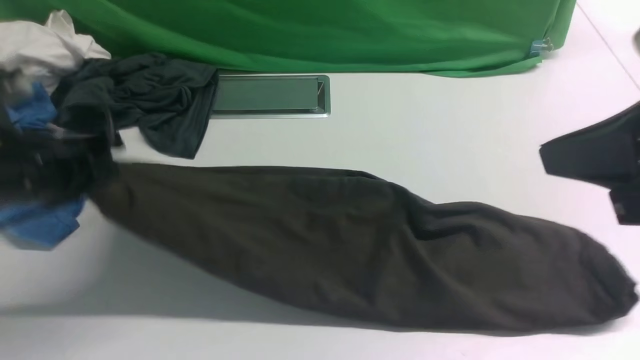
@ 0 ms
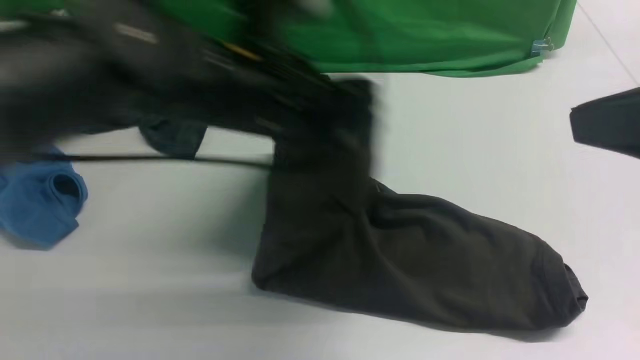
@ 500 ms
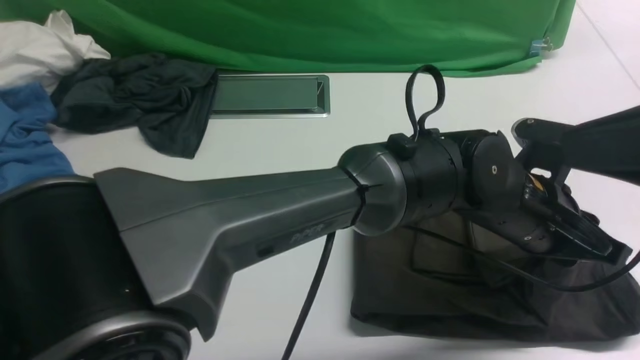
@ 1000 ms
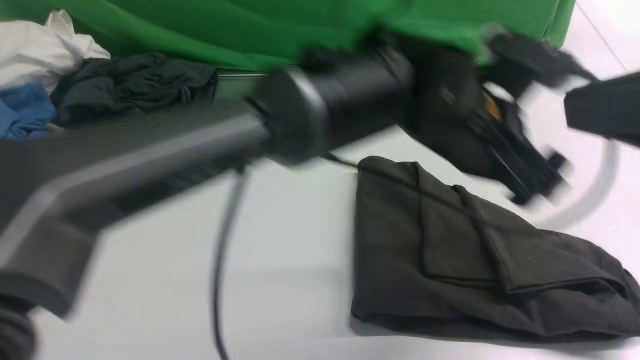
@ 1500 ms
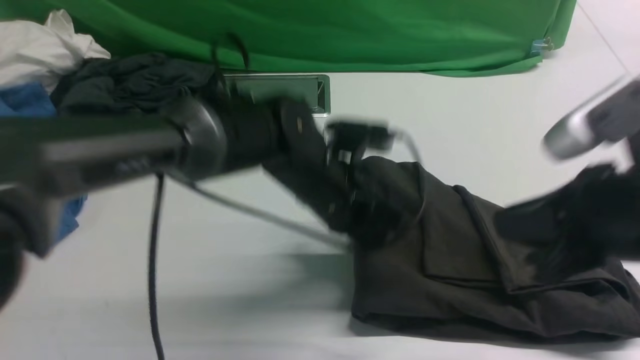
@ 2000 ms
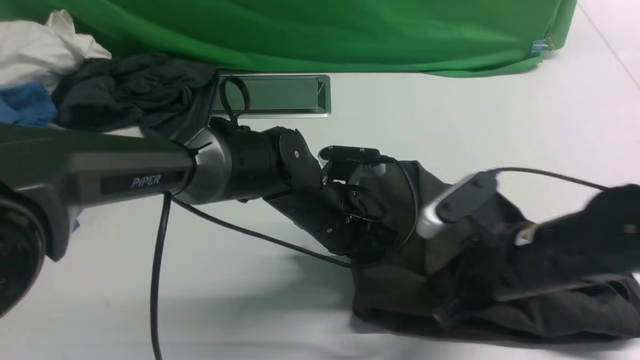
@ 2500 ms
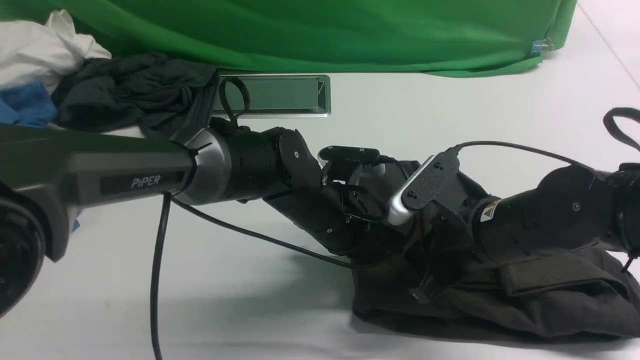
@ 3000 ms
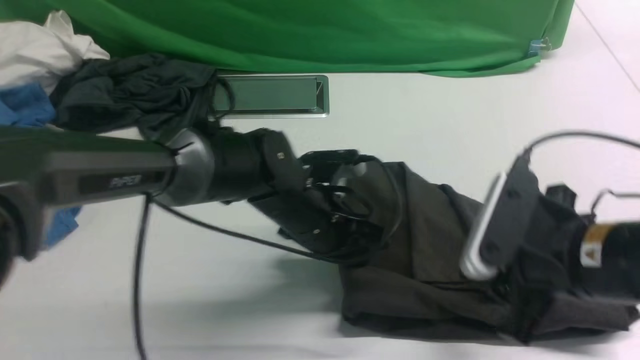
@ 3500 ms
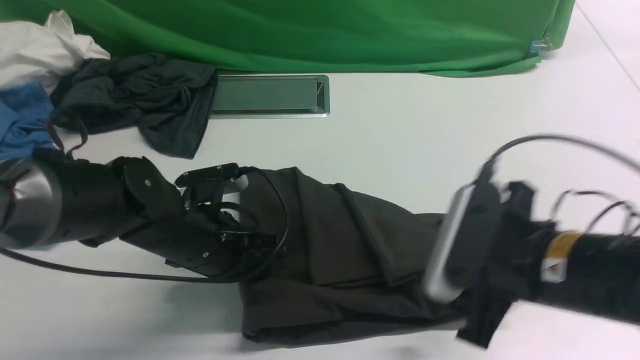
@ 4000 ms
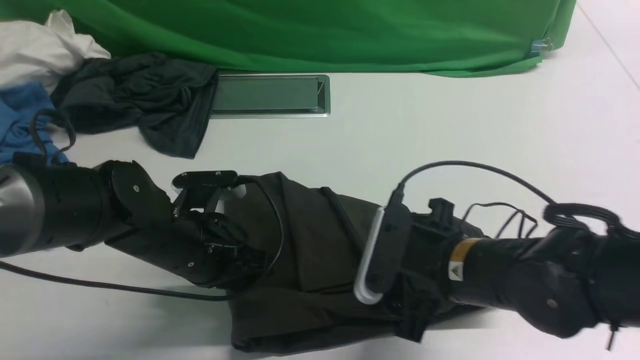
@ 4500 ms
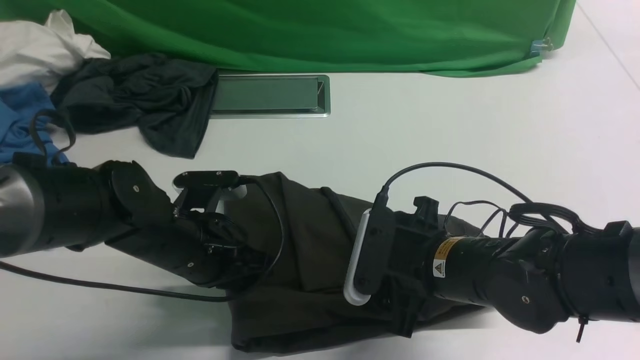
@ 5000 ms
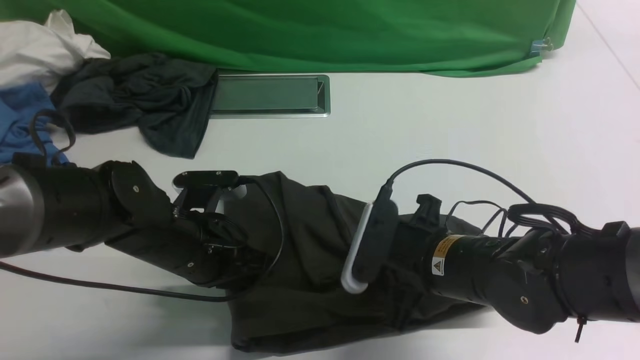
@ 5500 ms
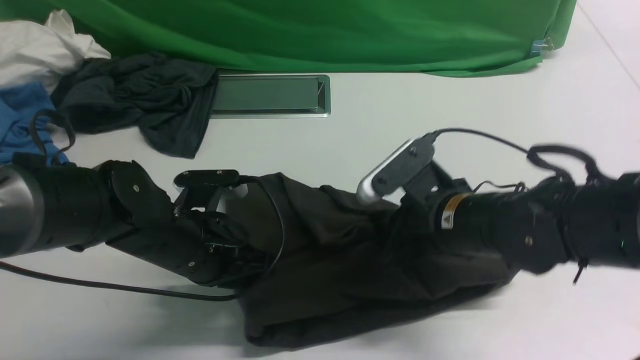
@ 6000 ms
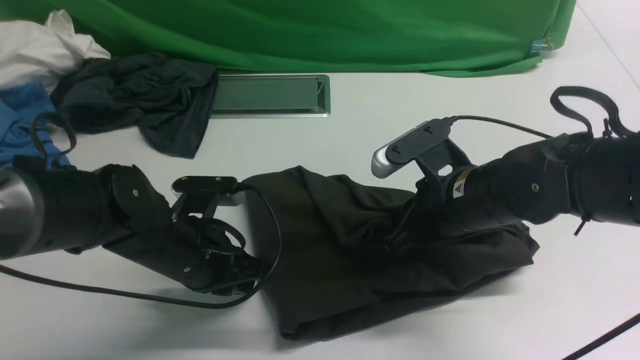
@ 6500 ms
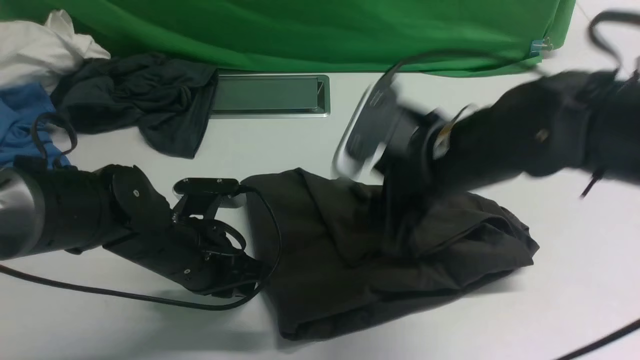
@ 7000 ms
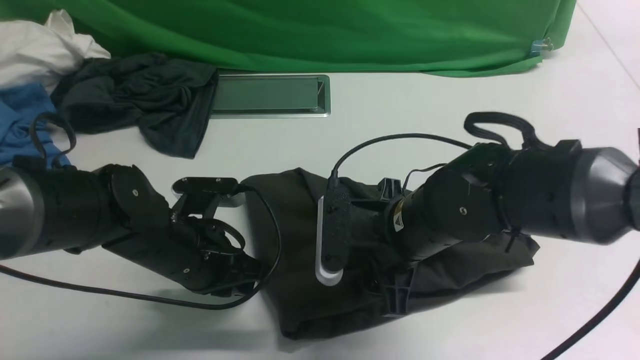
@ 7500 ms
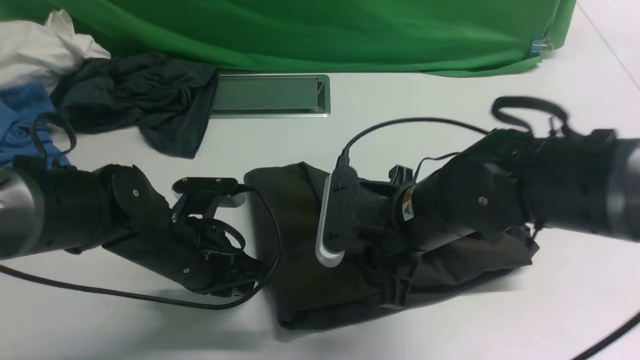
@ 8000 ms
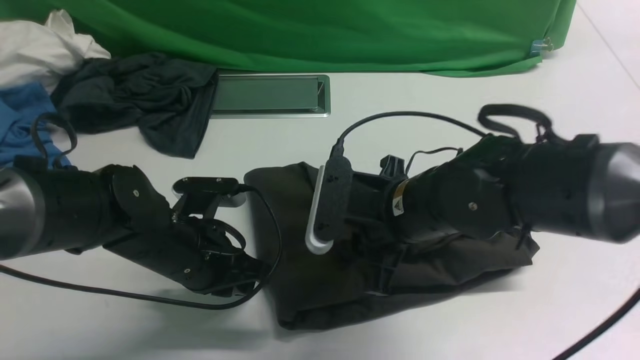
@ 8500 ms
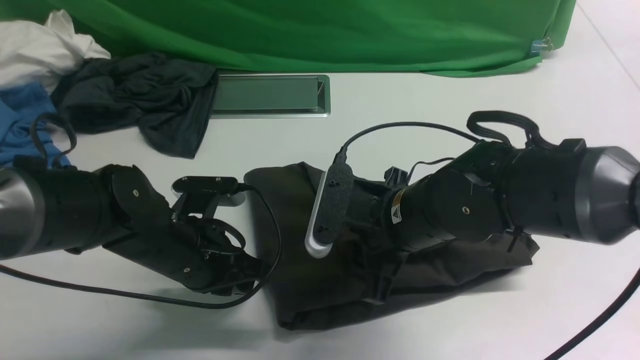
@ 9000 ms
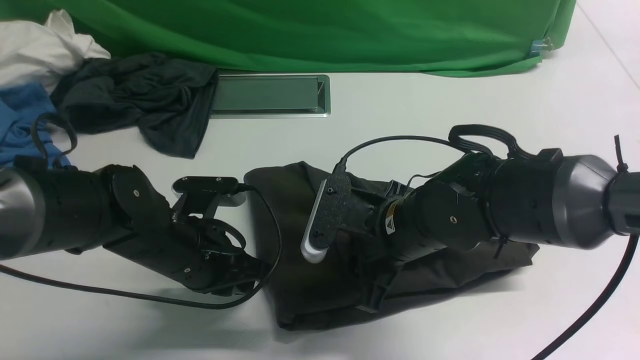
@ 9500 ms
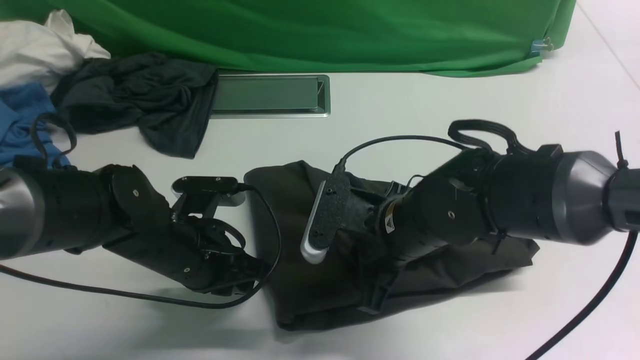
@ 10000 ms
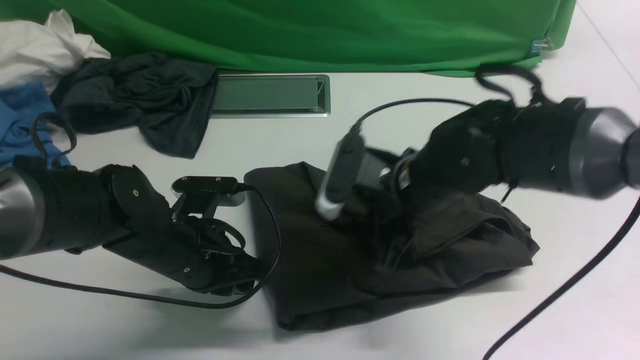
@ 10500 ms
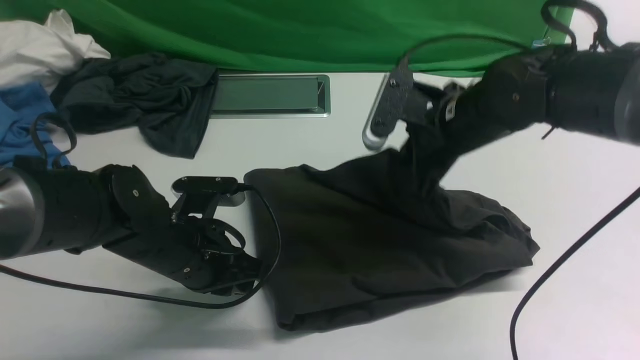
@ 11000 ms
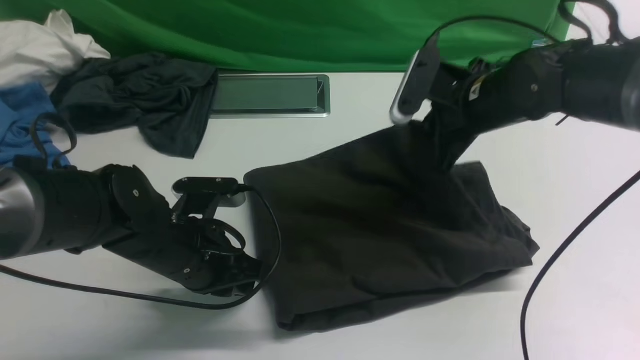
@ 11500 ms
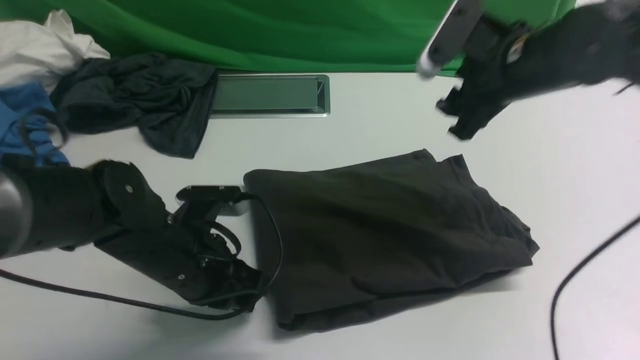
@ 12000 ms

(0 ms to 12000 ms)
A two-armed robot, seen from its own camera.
Step, 0 ms - 1000 ms: Drag the left edge of the fabric to the left with your left arm and fold it to the right edge.
0 ms - 2000 ms: The left gripper shifts about 25 cm to the right and downward, and opens and closes again; the right gripper travels downward by approximately 10 cm.
2000 ms - 4000 ms: The right gripper goes approximately 10 cm downward, and opens, while the left gripper travels to the left and backward by approximately 15 cm.
4000 ms - 6000 ms: The right gripper is displaced forward by roughly 10 cm, and closes.
6000 ms - 8000 ms: The right gripper moves about 5 cm, and opens.
8000 ms - 10000 ms: The right gripper closes.
10000 ms - 12000 ms: The right gripper travels to the right, upward and forward by roughly 20 cm, and opens its fingers.

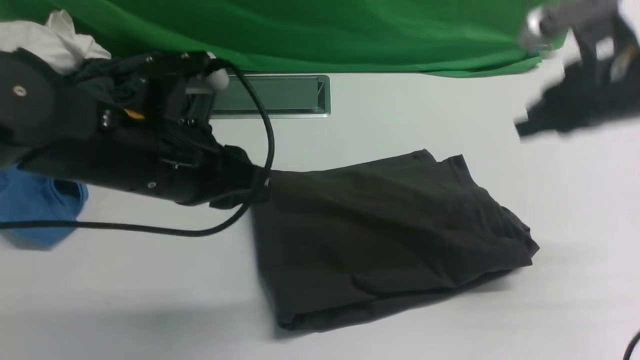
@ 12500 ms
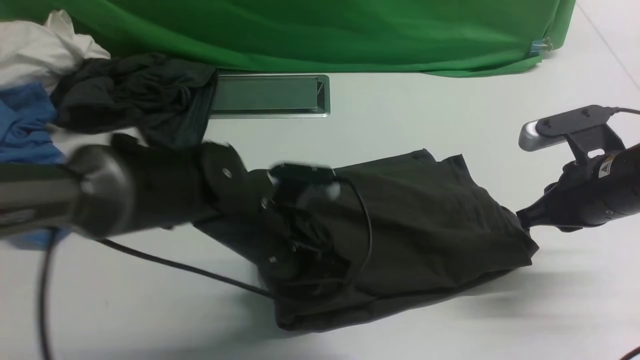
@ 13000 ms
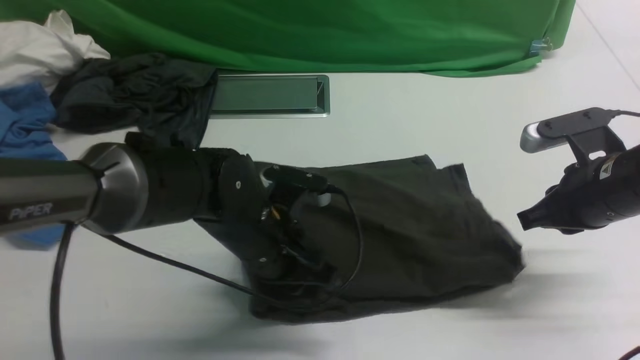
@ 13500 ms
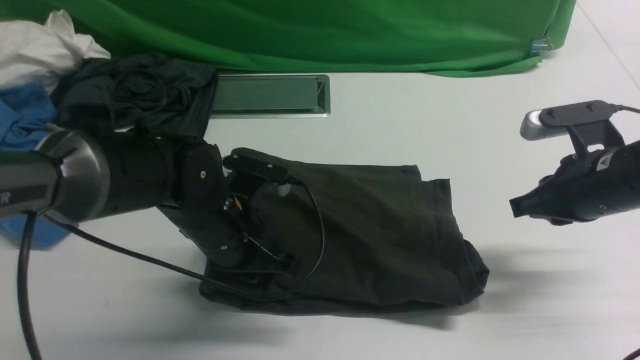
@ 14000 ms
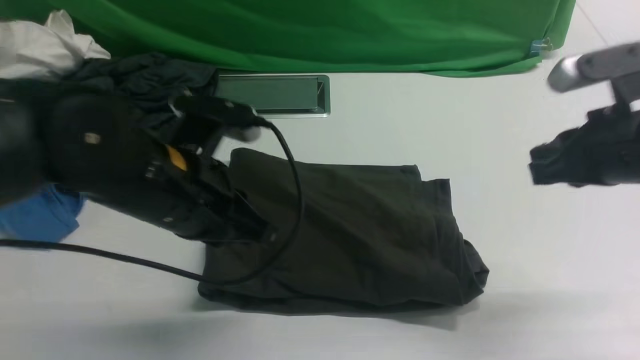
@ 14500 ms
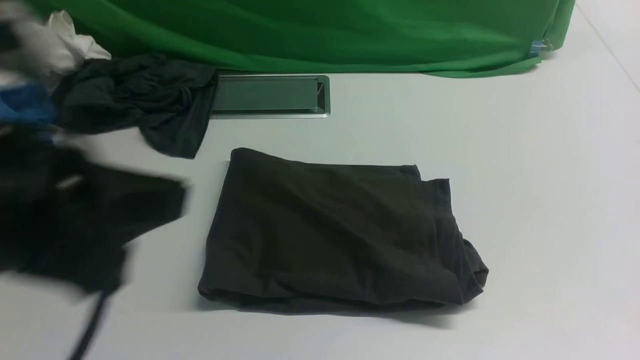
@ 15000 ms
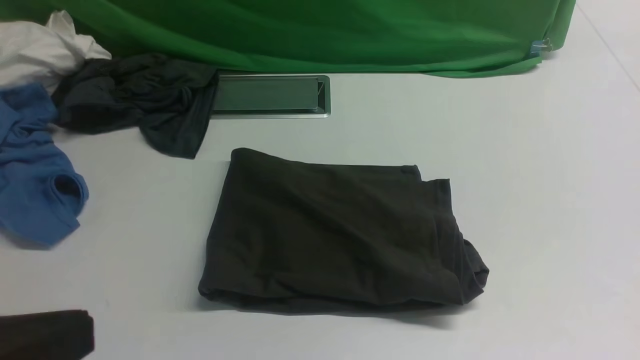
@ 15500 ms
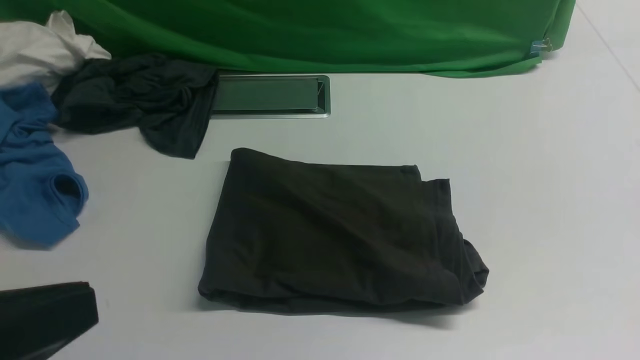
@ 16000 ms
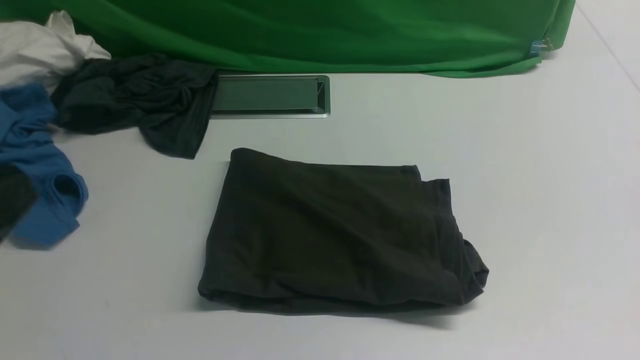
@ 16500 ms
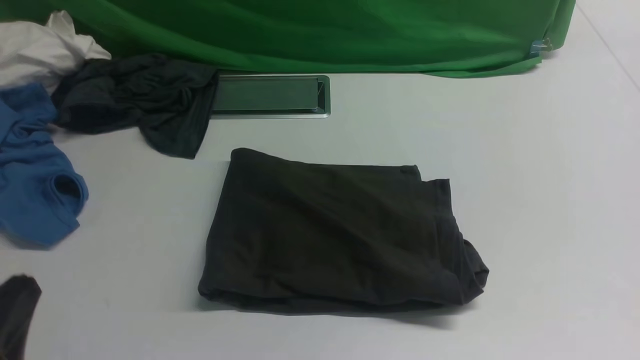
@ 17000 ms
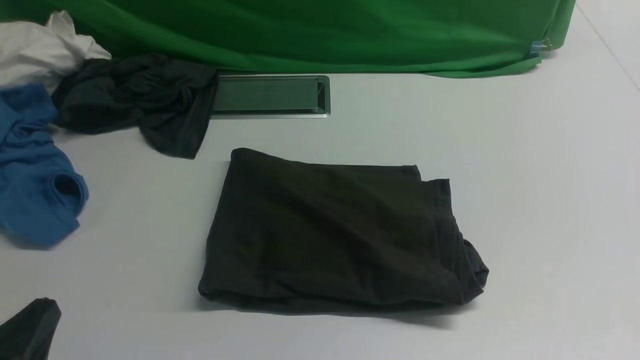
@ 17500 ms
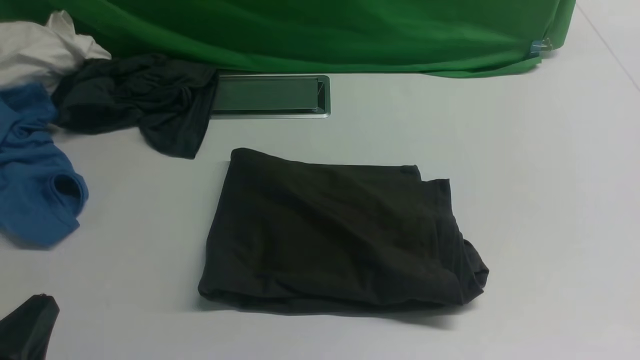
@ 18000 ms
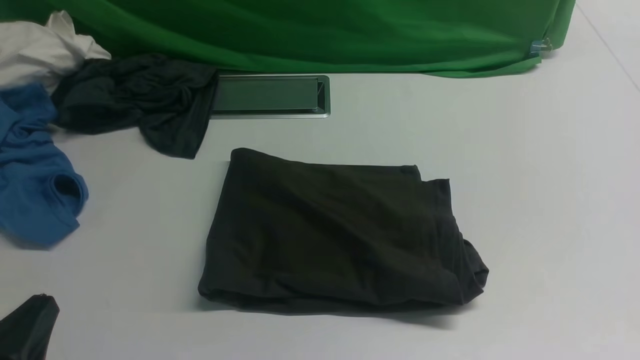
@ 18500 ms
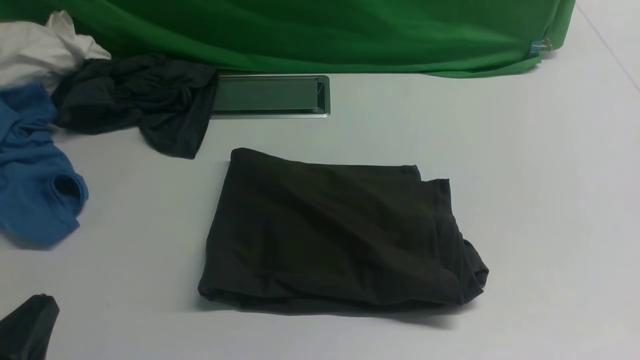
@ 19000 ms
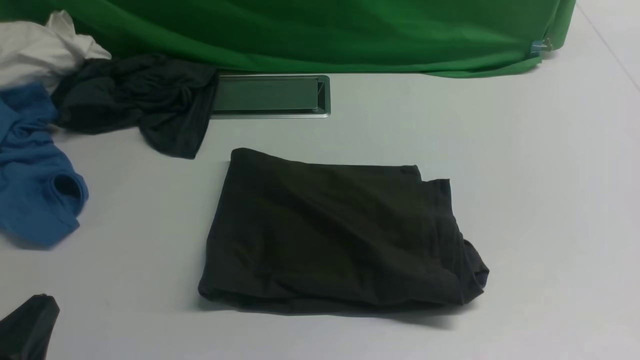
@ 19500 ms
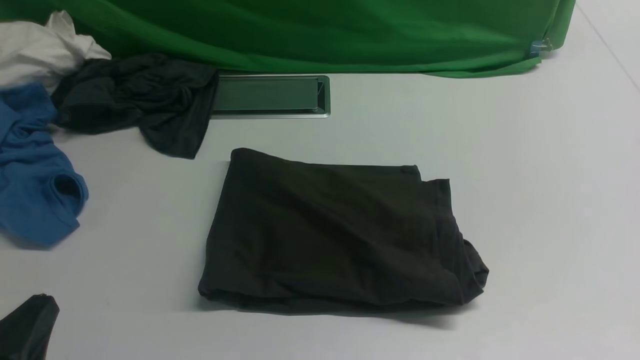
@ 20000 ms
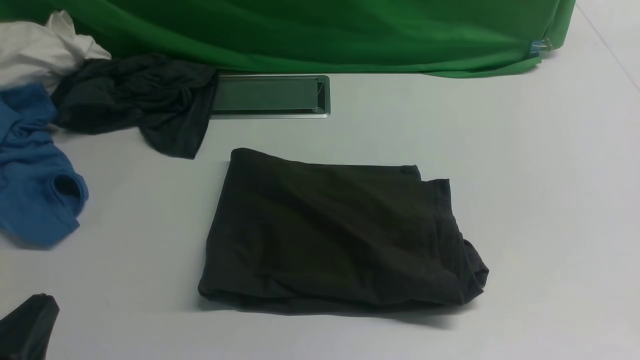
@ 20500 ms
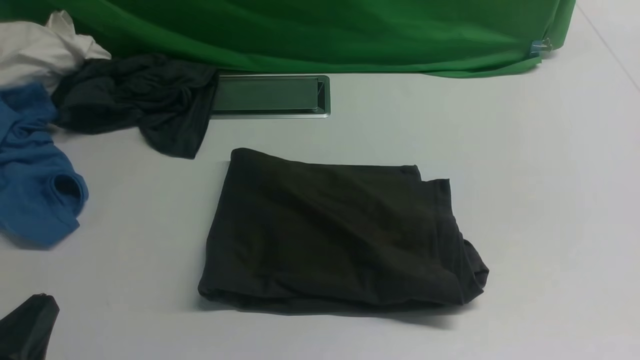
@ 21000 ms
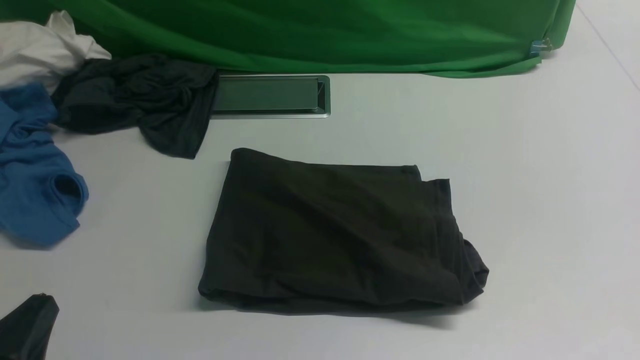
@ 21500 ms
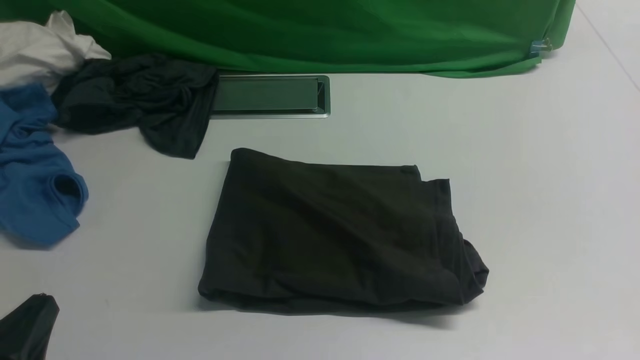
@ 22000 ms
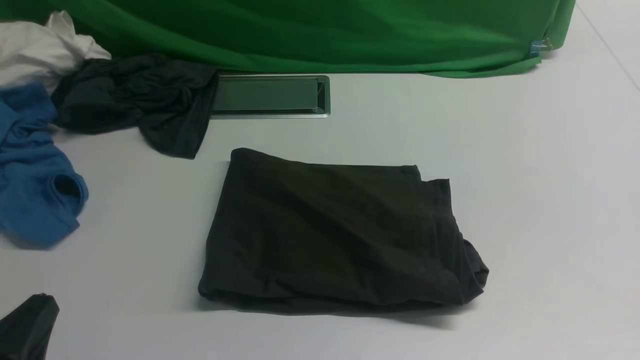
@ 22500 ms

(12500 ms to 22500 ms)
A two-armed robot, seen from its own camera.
12500 ms - 14500 ms: The left gripper moves about 10 cm downward and comes back, while the right gripper moves backward, about 5 cm, and moves roughly 5 cm downward and comes back.
14500 ms - 16500 ms: The left gripper is displaced backward and to the left by about 20 cm, while the right gripper is displaced backward by about 20 cm.
16500 ms - 18500 ms: The left gripper goes about 15 cm downward.
20500 ms - 22500 ms: The two grippers keep their place.
